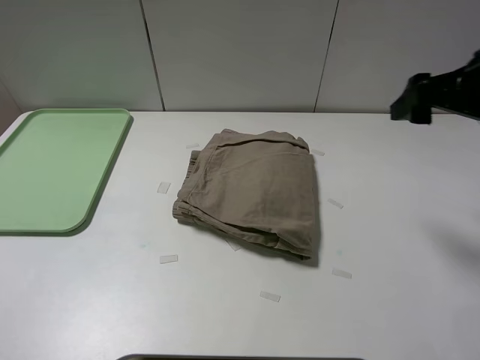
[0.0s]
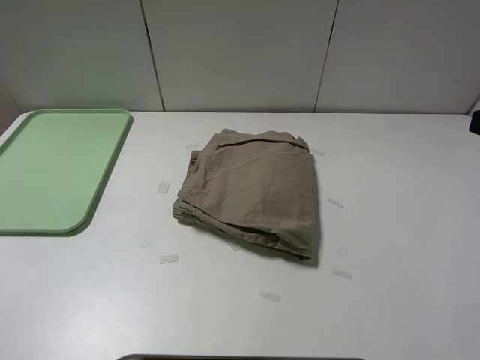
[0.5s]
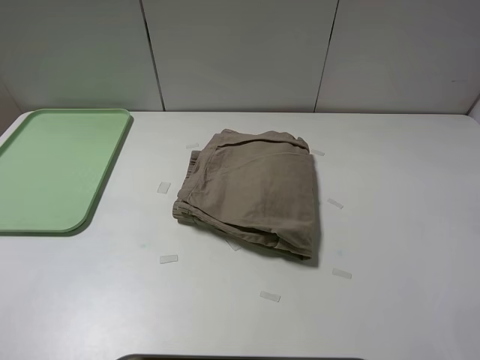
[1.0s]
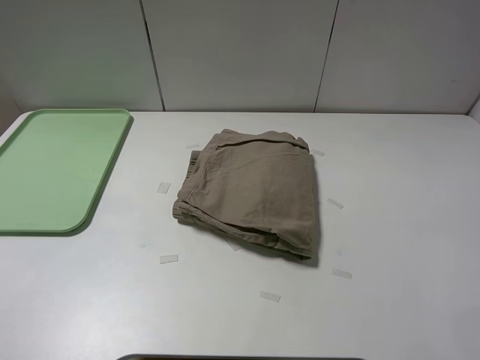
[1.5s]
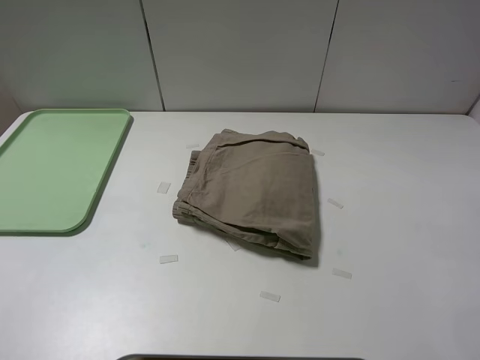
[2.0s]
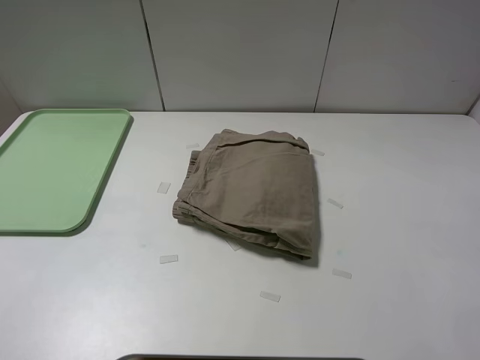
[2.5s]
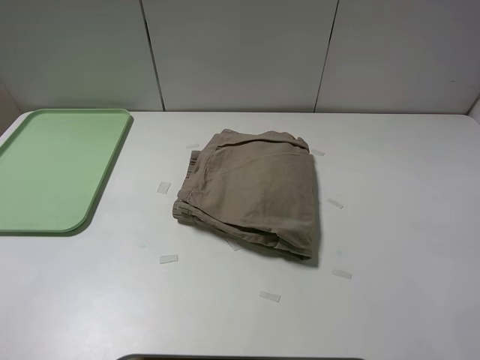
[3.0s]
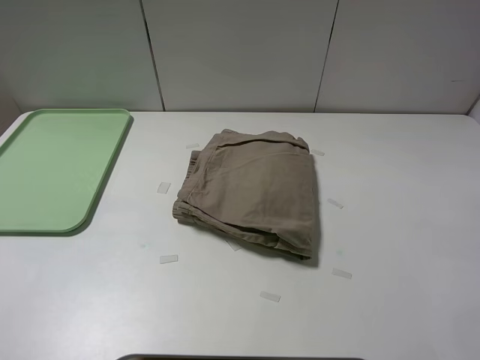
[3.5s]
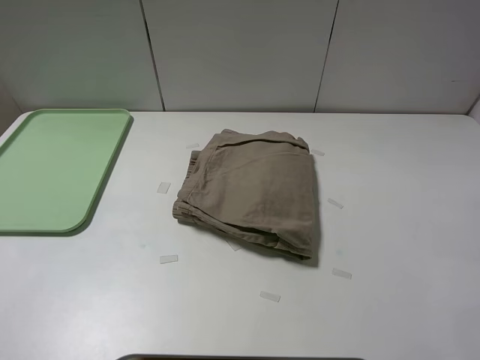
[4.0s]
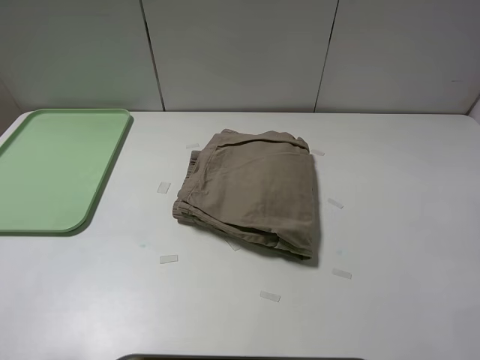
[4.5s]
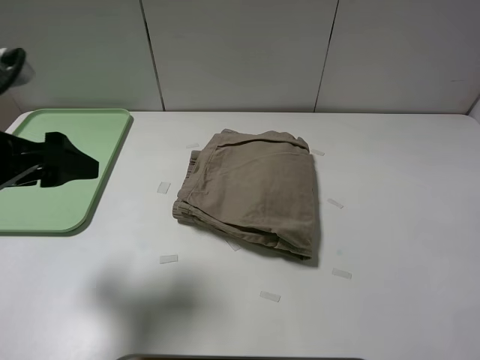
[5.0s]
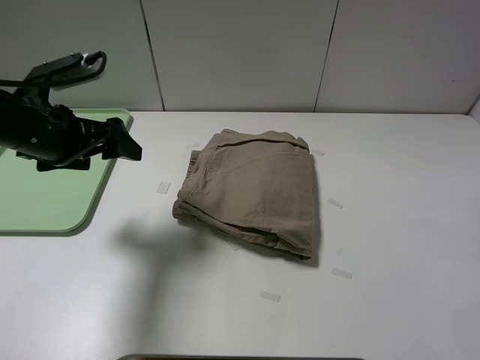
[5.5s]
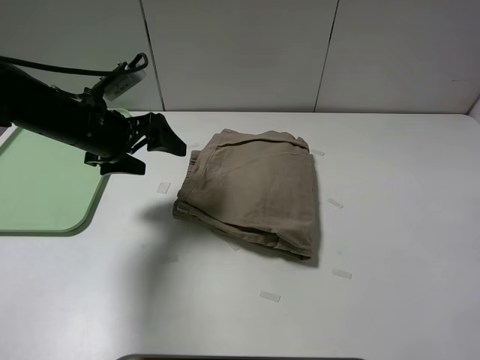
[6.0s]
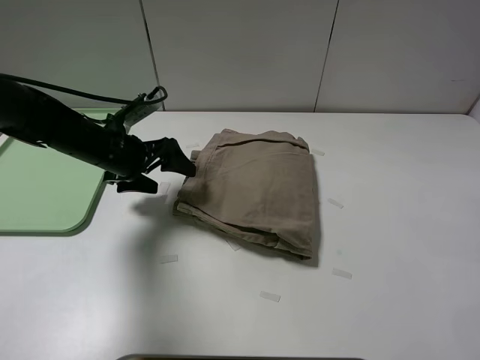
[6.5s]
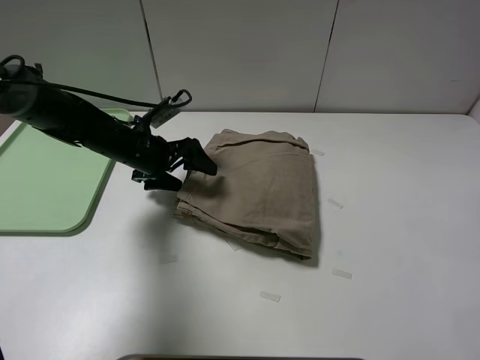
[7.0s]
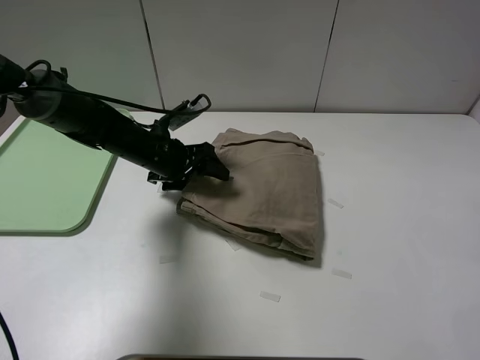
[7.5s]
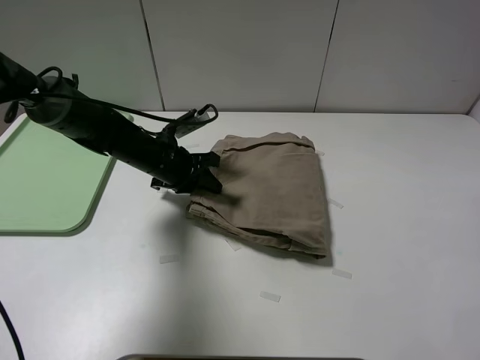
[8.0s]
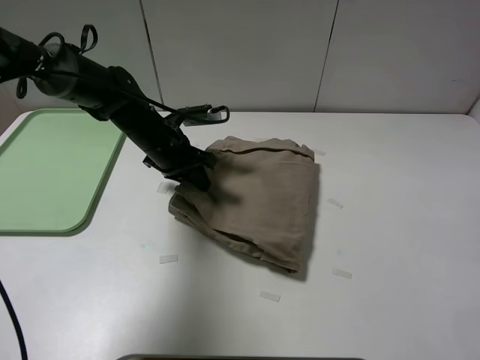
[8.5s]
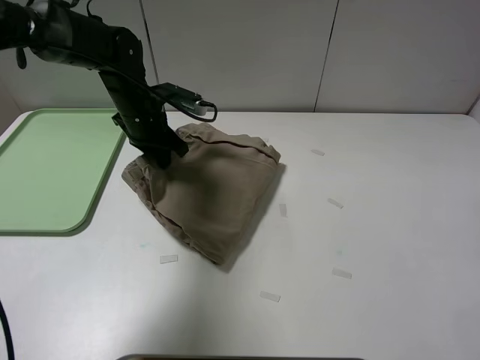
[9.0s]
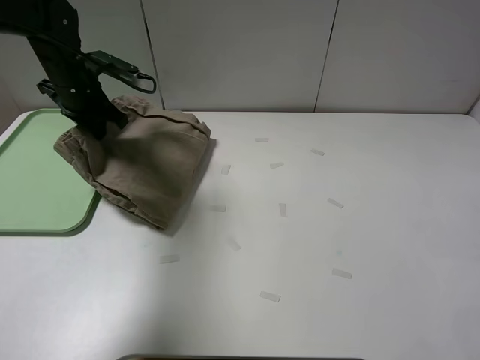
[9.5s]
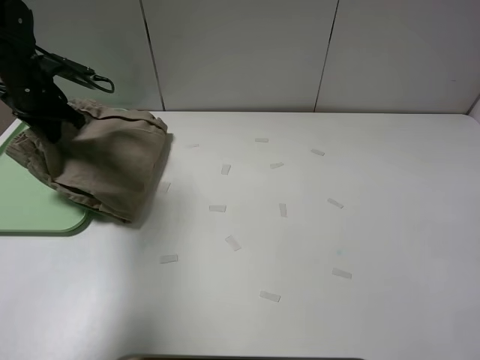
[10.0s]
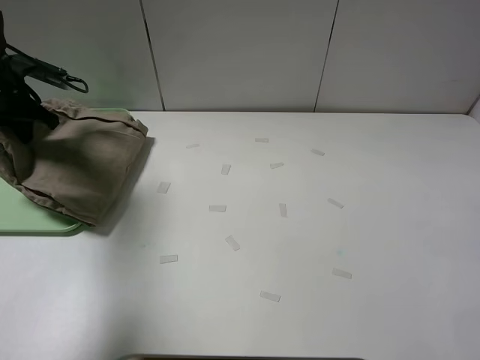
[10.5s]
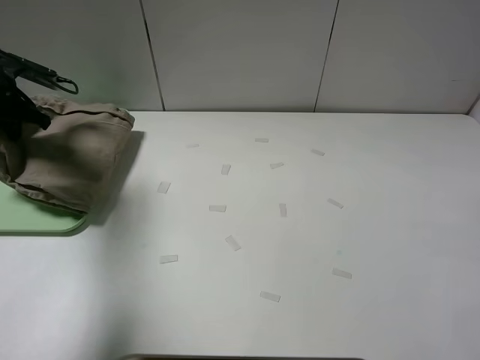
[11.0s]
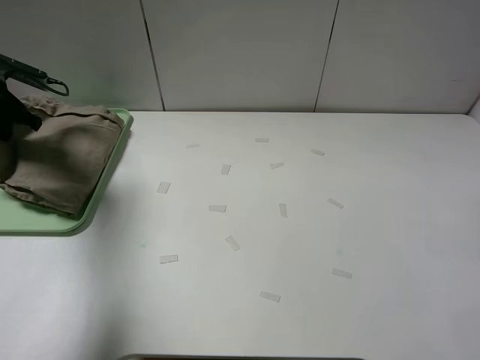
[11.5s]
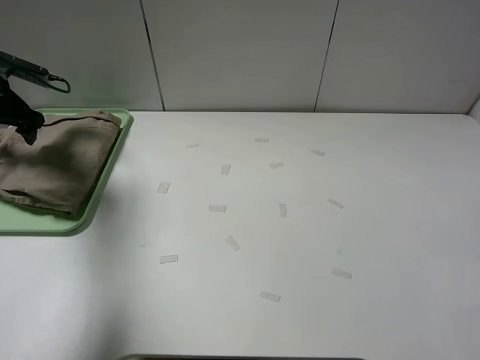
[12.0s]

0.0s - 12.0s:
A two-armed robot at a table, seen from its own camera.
Task of the whole recording: fold the khaki jeans in half with two grippers, then fold them in half again, and use the left claw to place the folded fold khaki jeans on the tray.
Step, 0.0s - 7.5s: Grasp the khaki trousers with the left gripper.
Step, 8.0s - 11.5s: Place the folded khaki trousers on the green tray with the left gripper.
0.0s - 2.0s: The right gripper is displaced backward by some 25 cm.
4.0s - 6.0s: The left gripper shifts approximately 30 cm forward.
6.0s - 8.0s: The left gripper heads downward and to the right, covering approximately 10 cm, and closes up.
8.0s - 10.0s: The left gripper moves to the left and upward, roughly 20 cm.
10.0s - 12.0s: The left gripper moves to the left, about 10 cm, and opens its fingers.

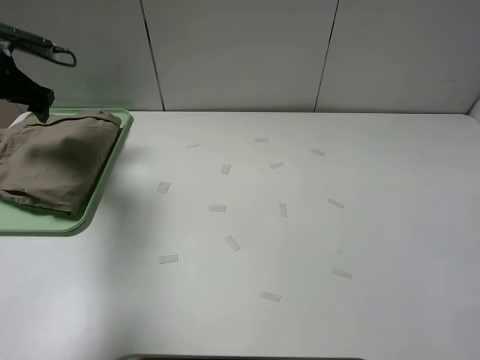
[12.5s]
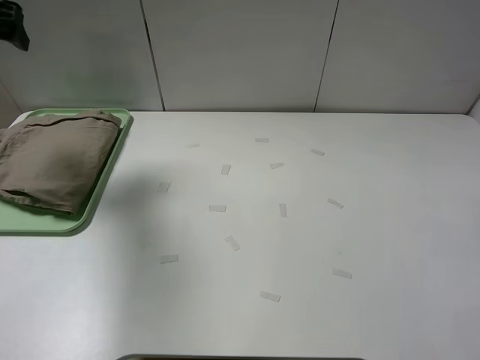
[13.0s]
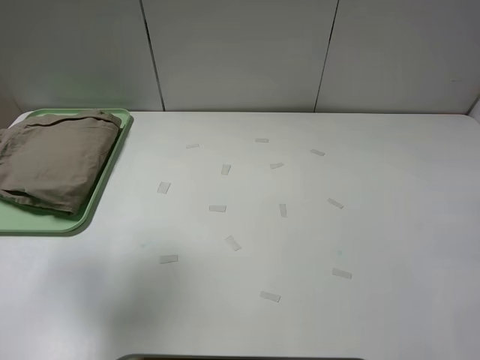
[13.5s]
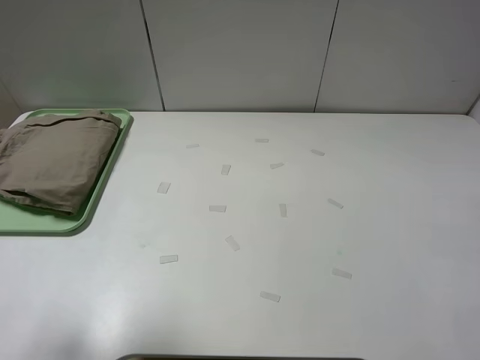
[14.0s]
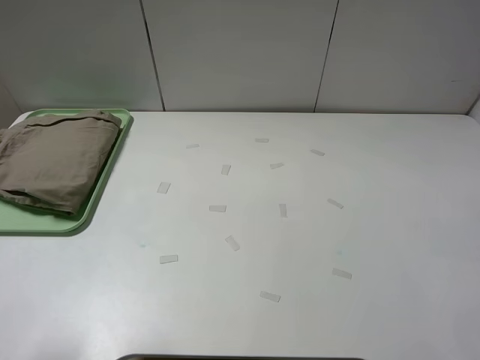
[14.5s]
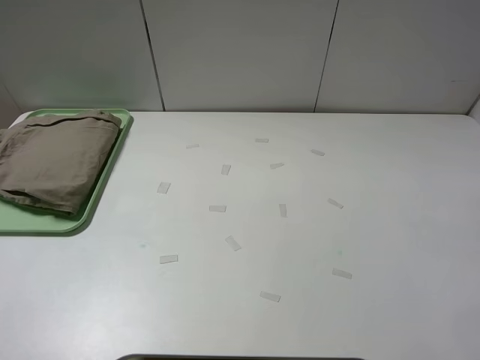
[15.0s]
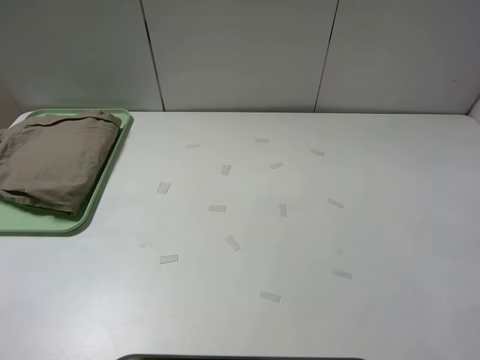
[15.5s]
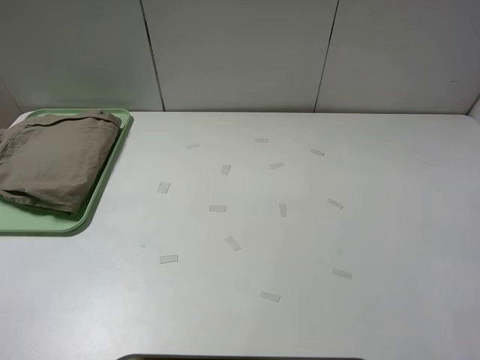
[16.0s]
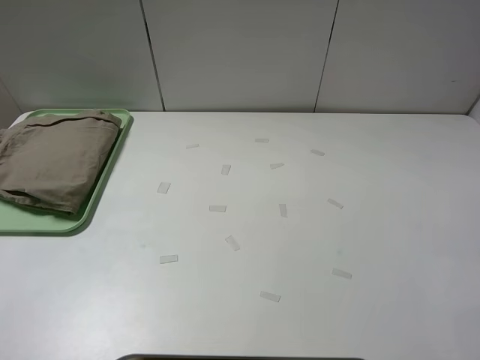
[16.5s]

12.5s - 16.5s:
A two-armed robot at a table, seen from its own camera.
Task of the whole recording: fold the khaki jeans in half with two grippers, then fold them in half again, and use the left claw to place the folded fold khaki jeans on the tray.
12.5s - 14.5s: The left gripper heads backward, covering approximately 40 cm.
